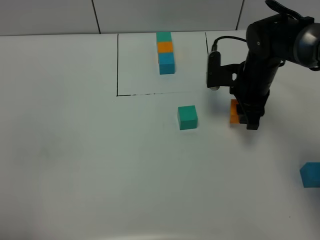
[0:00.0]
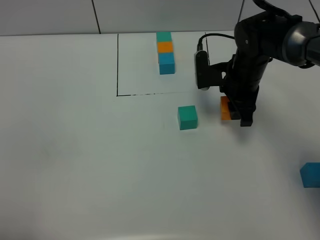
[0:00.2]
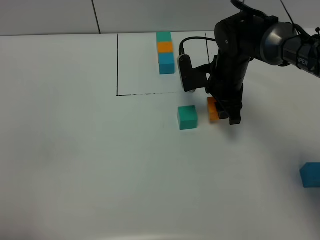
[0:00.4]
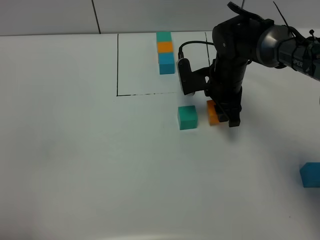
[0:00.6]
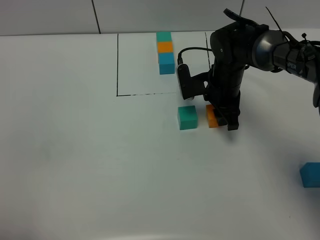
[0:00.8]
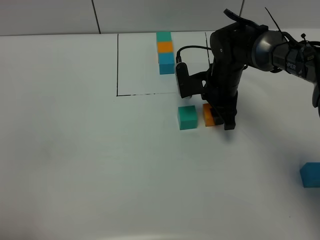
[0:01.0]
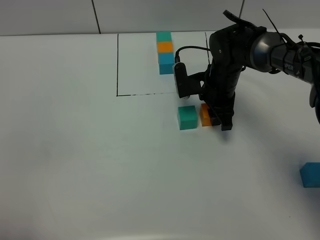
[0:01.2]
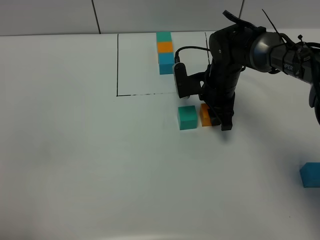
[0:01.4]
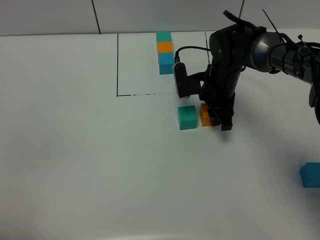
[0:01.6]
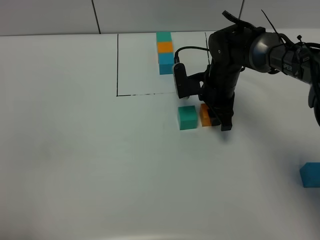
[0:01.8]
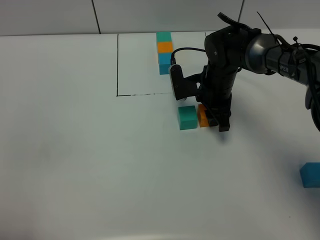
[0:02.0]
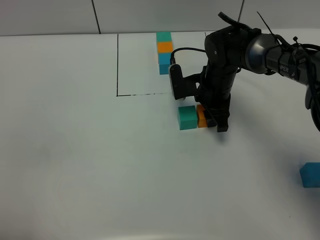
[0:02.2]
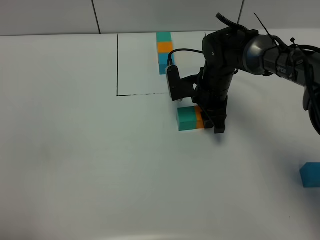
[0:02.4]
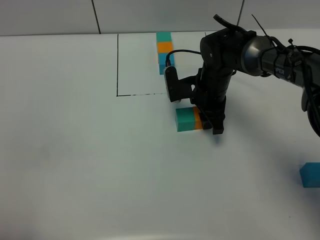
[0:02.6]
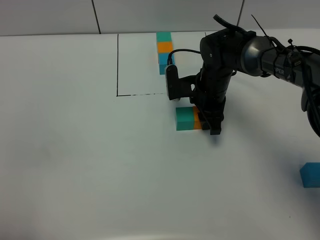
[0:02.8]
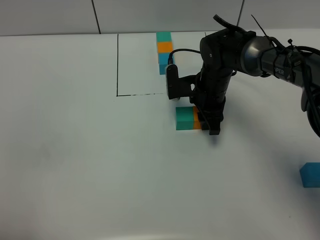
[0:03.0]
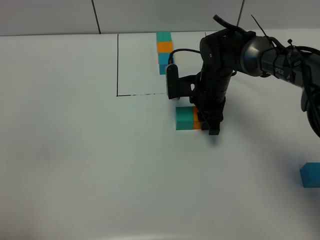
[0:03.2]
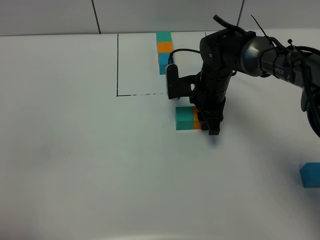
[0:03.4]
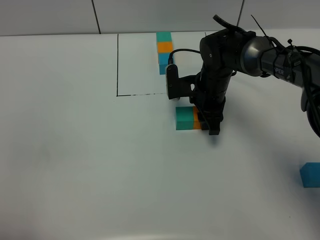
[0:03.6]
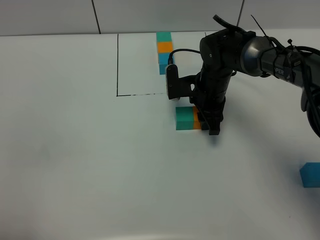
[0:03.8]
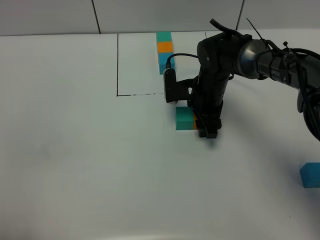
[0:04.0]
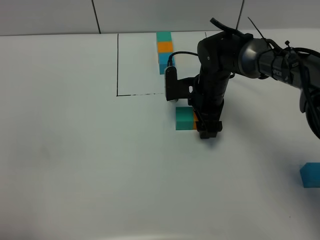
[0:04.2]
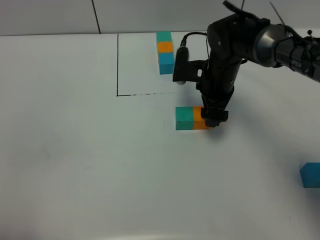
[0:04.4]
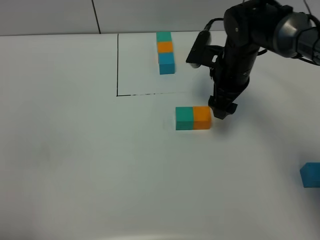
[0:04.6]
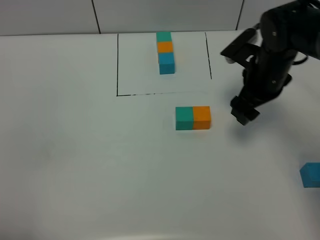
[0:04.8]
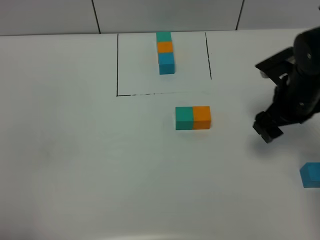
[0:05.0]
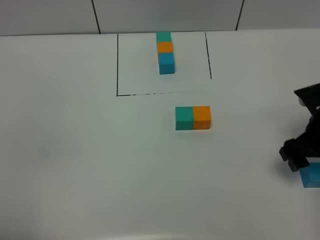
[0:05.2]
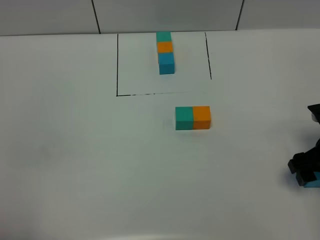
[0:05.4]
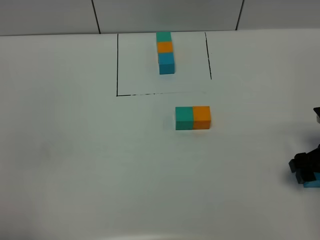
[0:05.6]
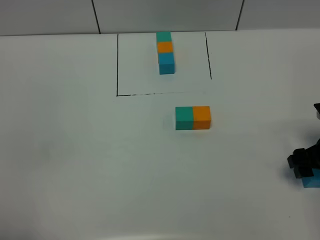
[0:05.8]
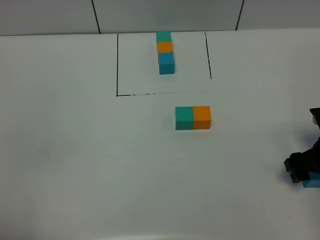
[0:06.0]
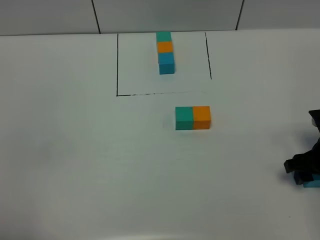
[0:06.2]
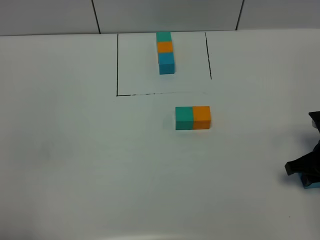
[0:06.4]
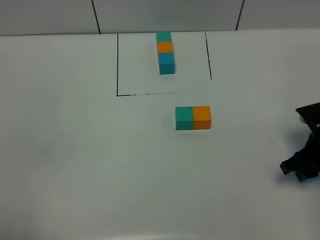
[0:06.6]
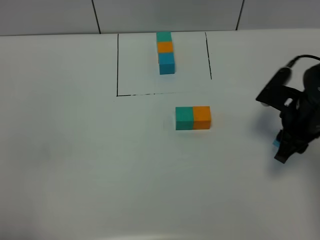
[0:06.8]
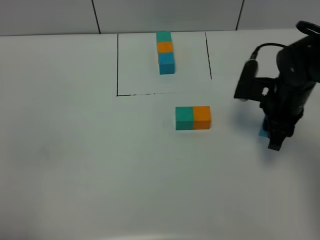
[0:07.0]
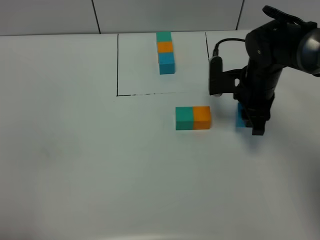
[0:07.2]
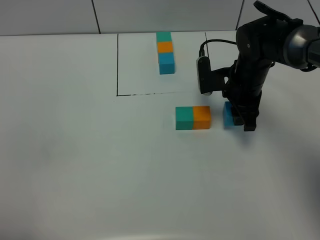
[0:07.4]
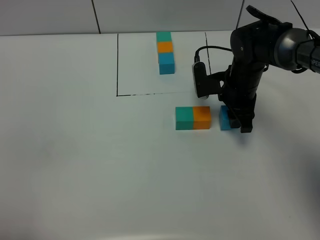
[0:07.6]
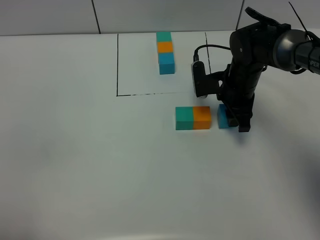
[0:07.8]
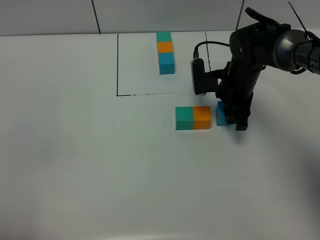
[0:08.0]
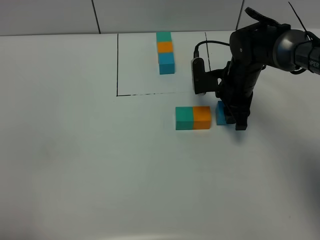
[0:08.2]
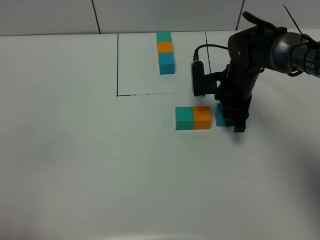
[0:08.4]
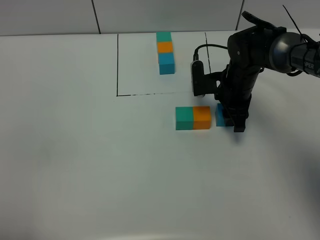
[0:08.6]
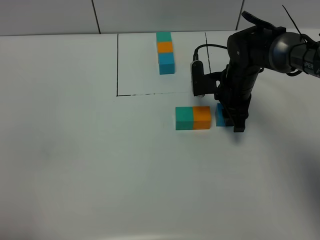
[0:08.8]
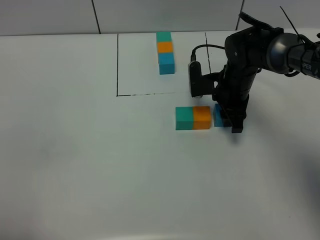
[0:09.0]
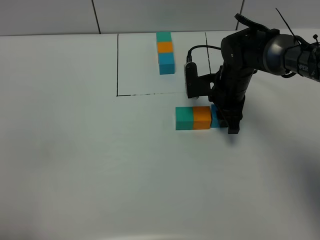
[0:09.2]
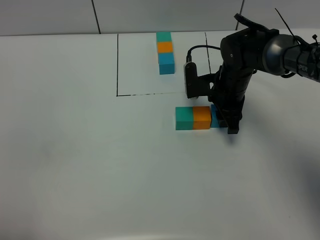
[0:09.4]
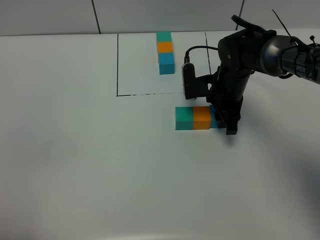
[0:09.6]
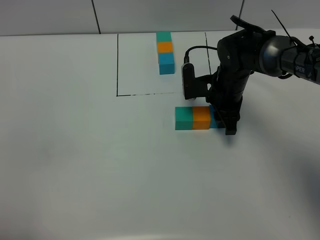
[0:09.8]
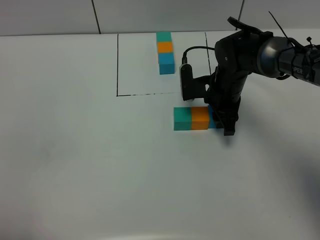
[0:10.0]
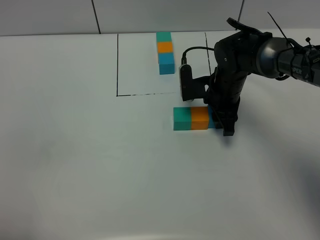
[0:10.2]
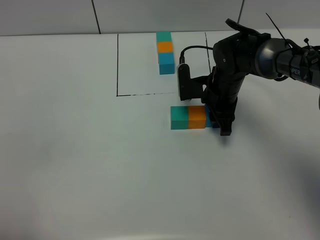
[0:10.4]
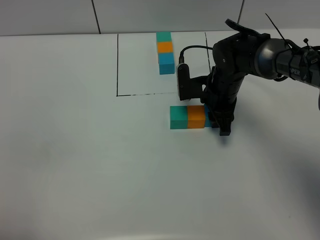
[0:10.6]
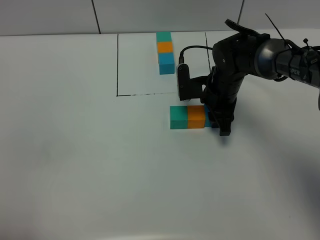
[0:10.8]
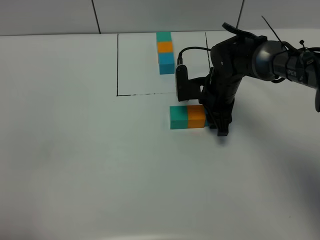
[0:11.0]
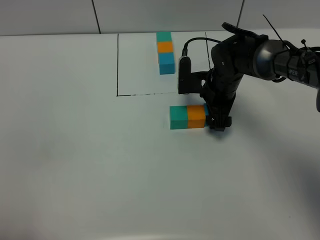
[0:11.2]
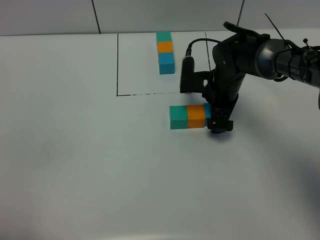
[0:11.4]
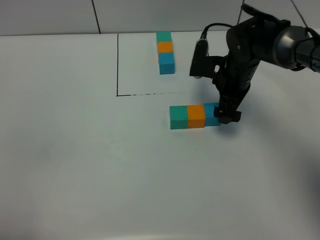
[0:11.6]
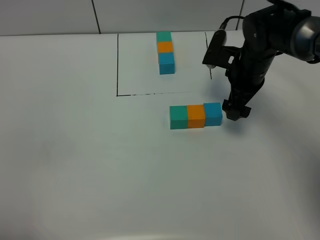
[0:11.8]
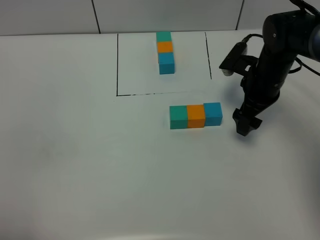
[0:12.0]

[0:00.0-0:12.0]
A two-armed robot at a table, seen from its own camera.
Task of the whole recording: According to the building block template in front, assemble the scattered blocks together.
Step, 0:00.0 to 0:04.4: Put the orange build block on the right of the green build block.
Step, 0:04.6 to 0:11.0: Put the blue build block on the right of the orange build block.
0:00.0 to 0:01.6: The right gripper is displaced to the left by about 5 cm.
0:01.6 to 0:03.0: The grippers stay close to where they were, moving slightly.
0:03.0 to 0:04.4: The right gripper opens up.
0:04.4 to 0:06.0: The right gripper moves to the right and backward, roughly 25 cm.
0:06.0 to 0:07.6: The right gripper goes some 20 cm to the left and forward, and closes.
0:07.6 to 0:10.4: There are only small adjustments of the grippers.
0:10.4 to 0:12.0: The right gripper goes some 10 cm to the right, and opens up.

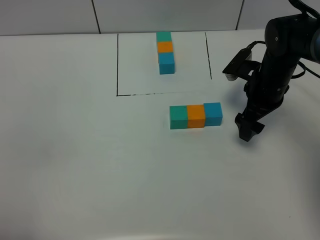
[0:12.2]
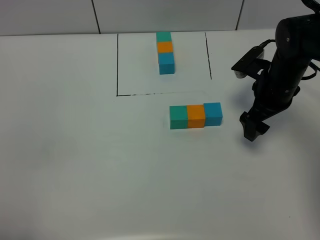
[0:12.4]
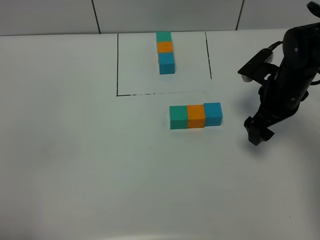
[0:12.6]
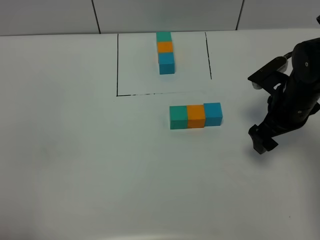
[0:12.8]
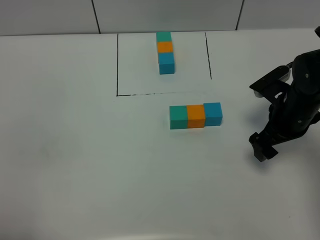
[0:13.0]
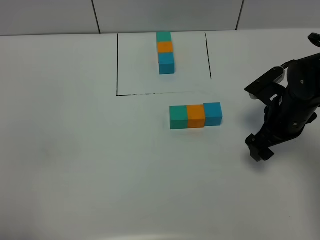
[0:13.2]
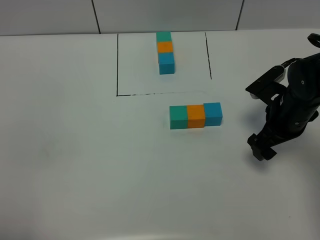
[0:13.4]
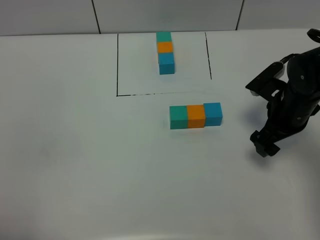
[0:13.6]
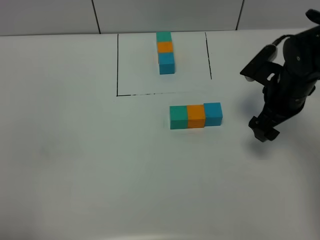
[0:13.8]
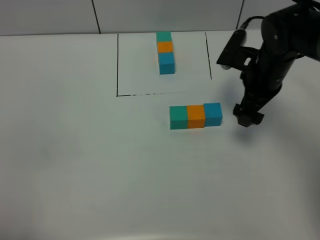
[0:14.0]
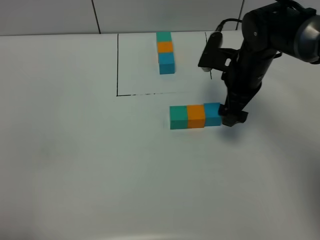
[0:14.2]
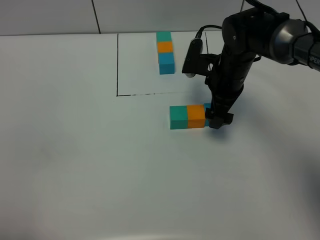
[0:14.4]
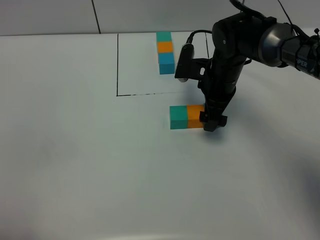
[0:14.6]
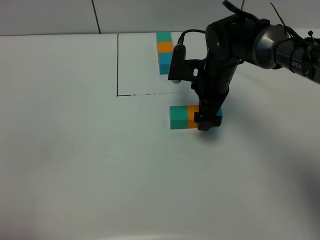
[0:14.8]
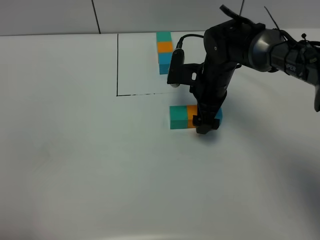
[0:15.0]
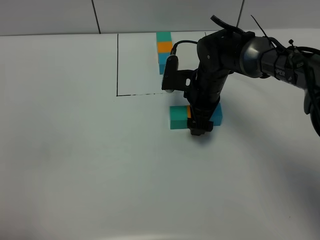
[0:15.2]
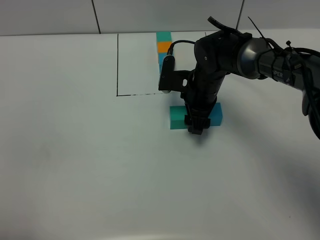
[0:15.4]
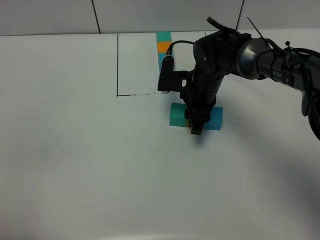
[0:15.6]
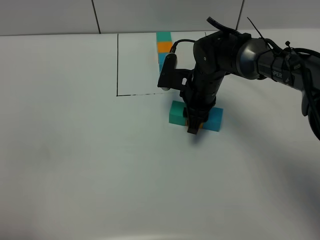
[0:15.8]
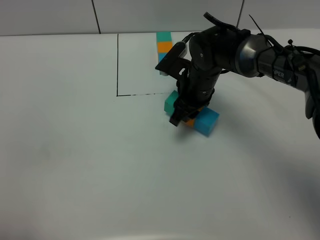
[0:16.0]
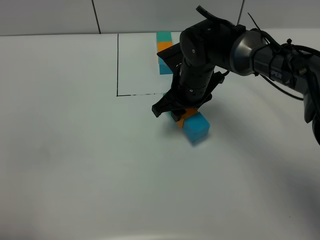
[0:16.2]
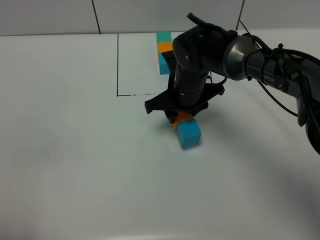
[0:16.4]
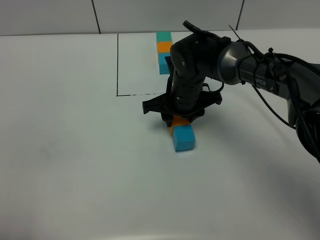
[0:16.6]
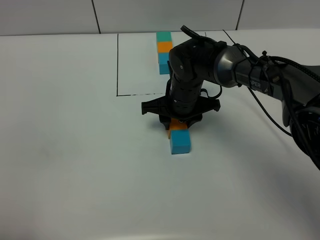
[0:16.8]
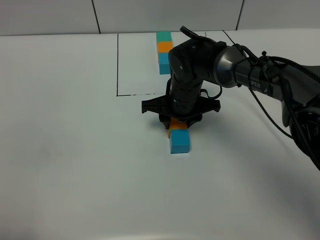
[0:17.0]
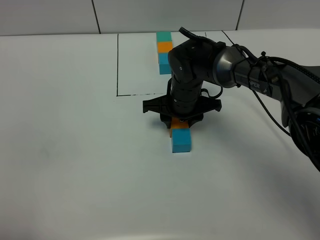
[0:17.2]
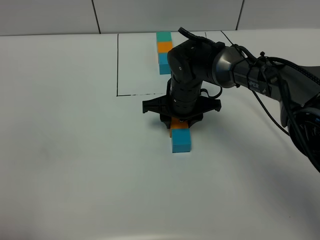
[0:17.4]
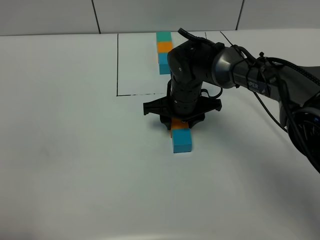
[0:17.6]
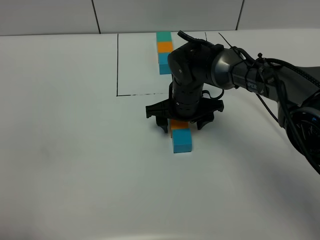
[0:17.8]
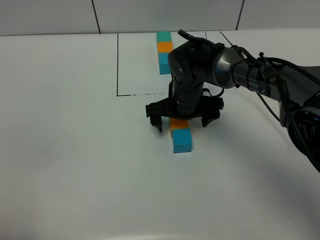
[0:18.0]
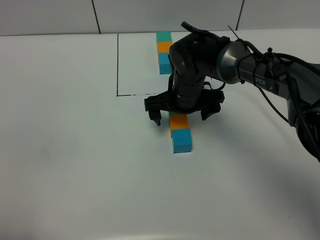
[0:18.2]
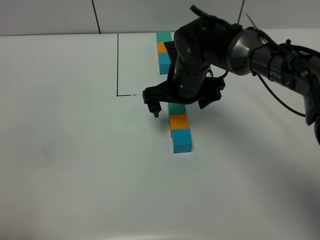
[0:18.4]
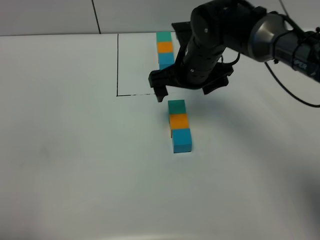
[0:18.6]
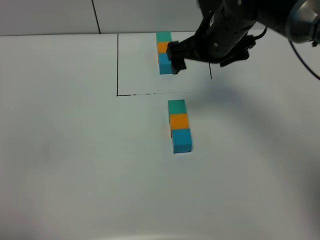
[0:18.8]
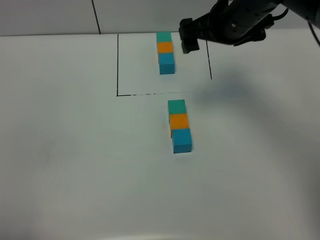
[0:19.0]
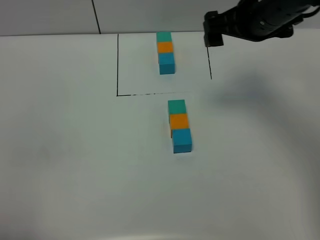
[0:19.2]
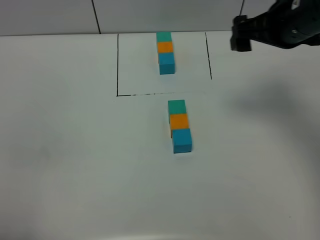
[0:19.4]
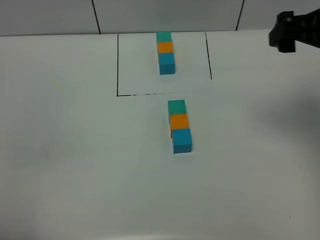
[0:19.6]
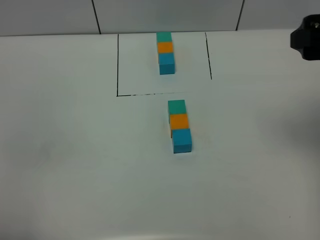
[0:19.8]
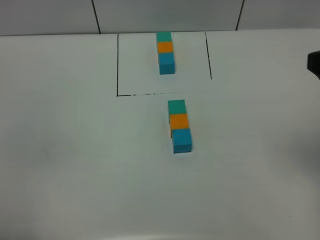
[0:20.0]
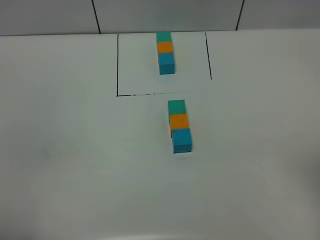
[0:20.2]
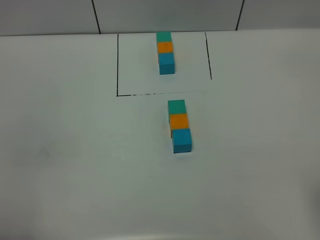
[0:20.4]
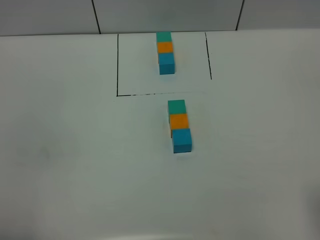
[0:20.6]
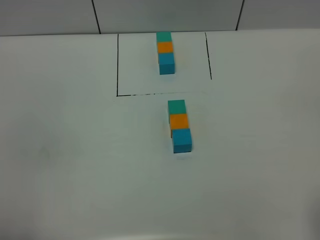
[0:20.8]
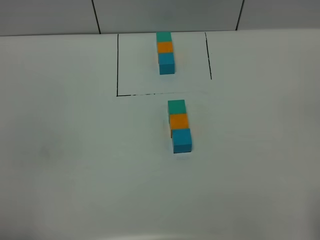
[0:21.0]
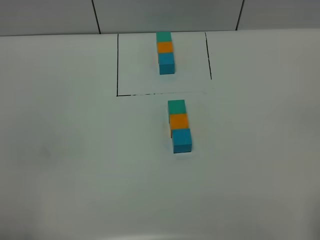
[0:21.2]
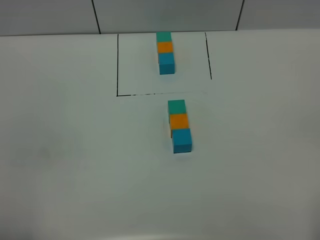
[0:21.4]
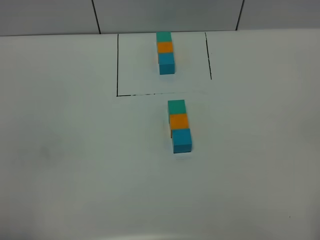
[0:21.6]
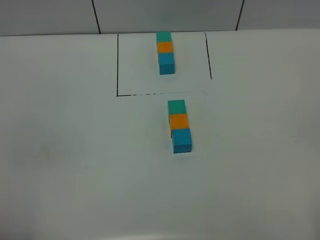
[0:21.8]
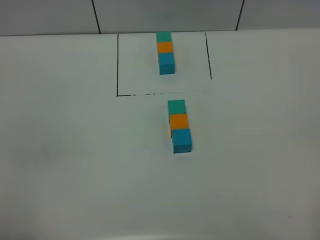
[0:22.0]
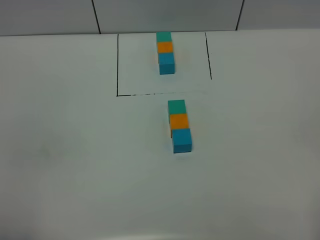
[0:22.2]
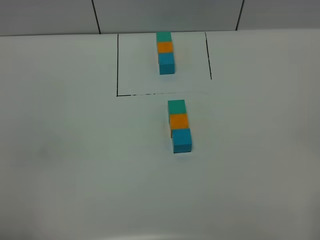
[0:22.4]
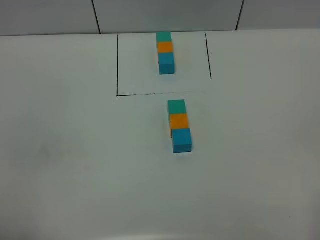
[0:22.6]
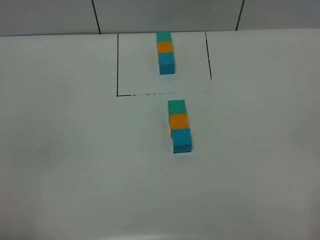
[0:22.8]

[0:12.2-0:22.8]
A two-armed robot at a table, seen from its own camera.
Task of the whole recording: According to the building block template in front, assemble the scattered blocks together.
Step, 0:12.2 to 0:17.8: move the build block to the center of the table.
0:13.8 to 0:15.2: The right gripper travels to the left, downward and forward by approximately 15 cm.
0:15.2 to 0:16.8: The right gripper shifts by about 5 cm, and closes up.
0:16.8 to 0:18.2: The right gripper opens up.
0:18.2 to 0:19.8: The right gripper is displaced upward, to the right and backward by some 35 cm.
0:19.8 to 0:21.2: The right gripper travels backward by approximately 25 cm.
